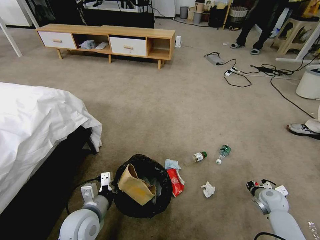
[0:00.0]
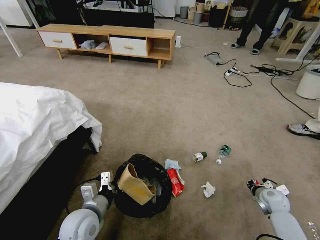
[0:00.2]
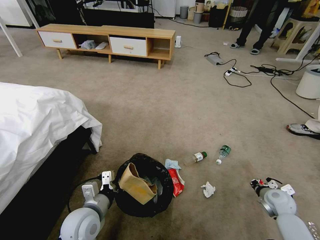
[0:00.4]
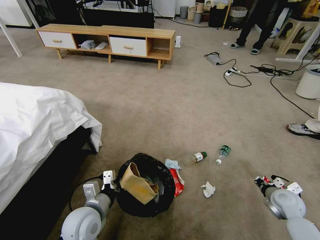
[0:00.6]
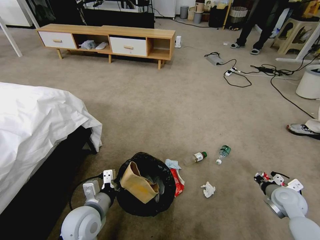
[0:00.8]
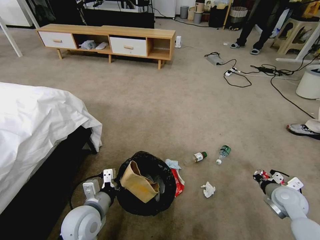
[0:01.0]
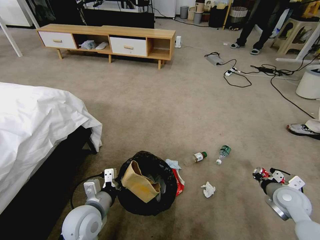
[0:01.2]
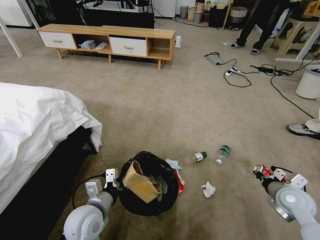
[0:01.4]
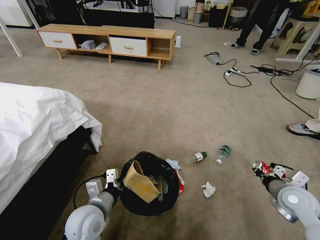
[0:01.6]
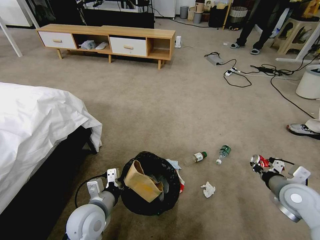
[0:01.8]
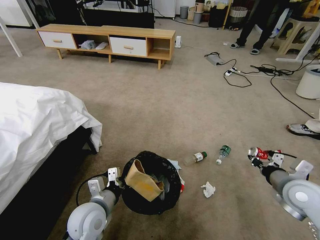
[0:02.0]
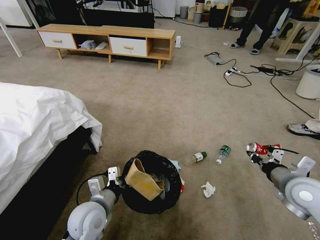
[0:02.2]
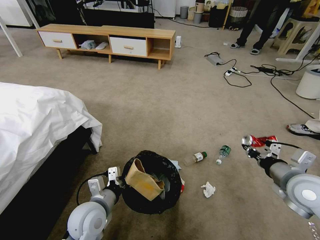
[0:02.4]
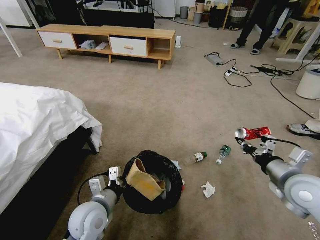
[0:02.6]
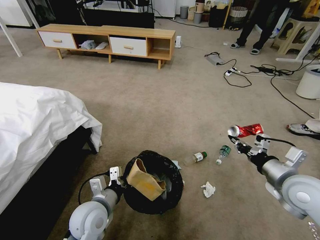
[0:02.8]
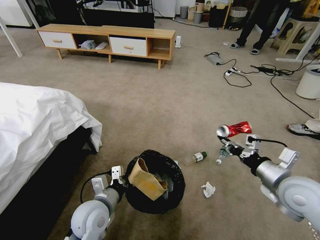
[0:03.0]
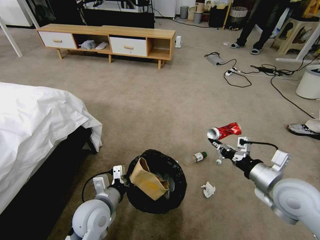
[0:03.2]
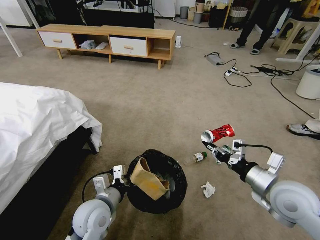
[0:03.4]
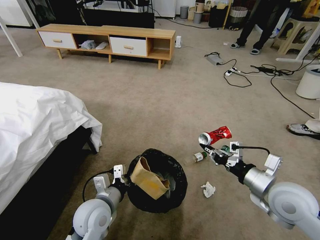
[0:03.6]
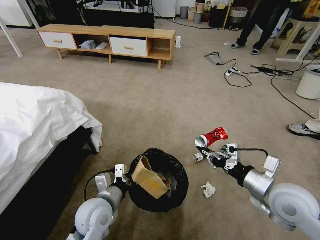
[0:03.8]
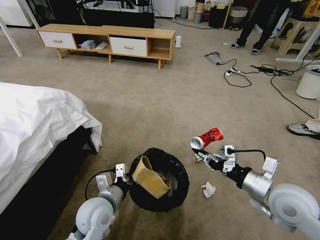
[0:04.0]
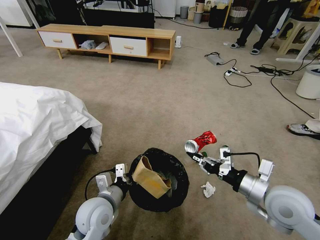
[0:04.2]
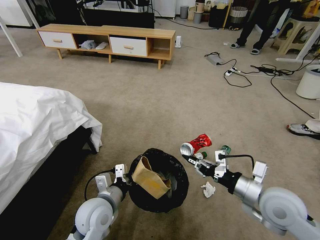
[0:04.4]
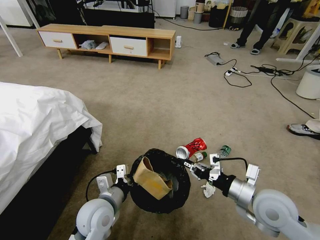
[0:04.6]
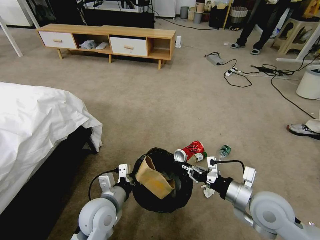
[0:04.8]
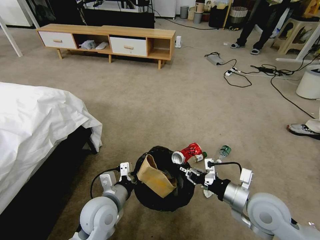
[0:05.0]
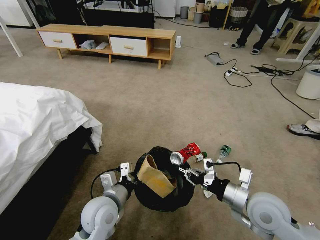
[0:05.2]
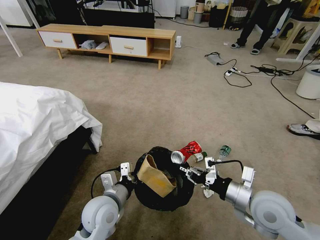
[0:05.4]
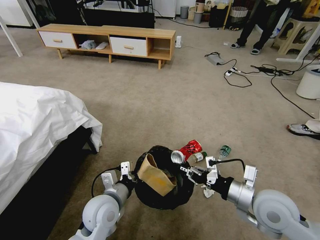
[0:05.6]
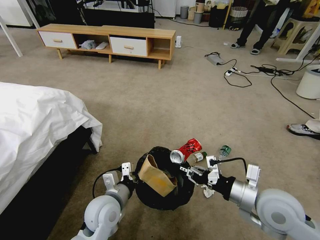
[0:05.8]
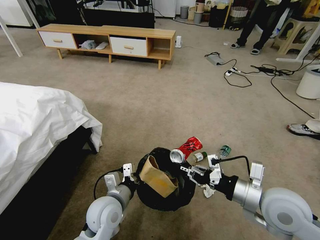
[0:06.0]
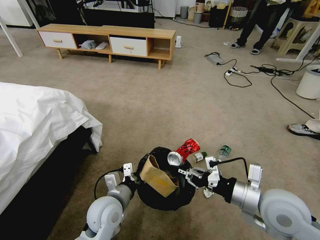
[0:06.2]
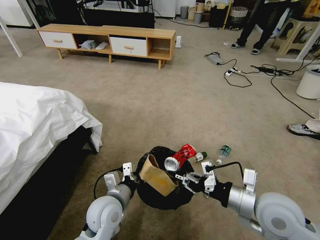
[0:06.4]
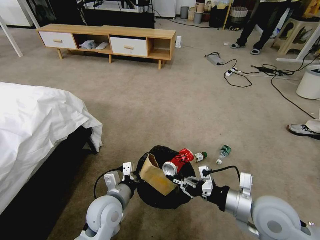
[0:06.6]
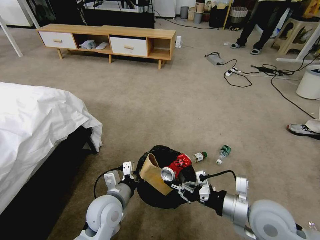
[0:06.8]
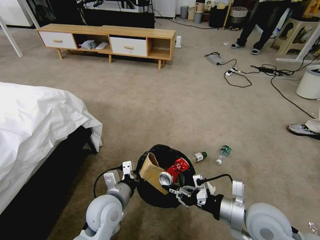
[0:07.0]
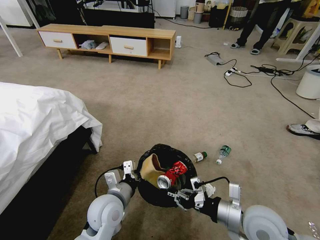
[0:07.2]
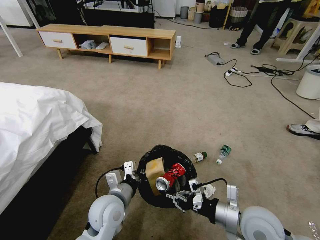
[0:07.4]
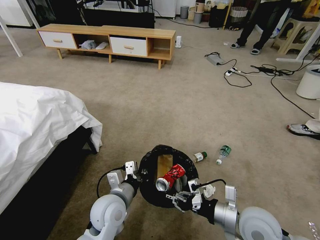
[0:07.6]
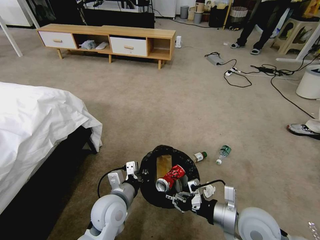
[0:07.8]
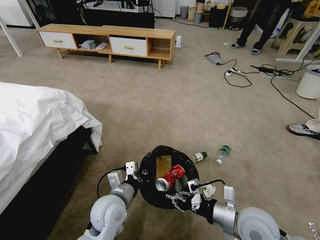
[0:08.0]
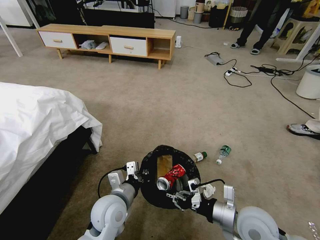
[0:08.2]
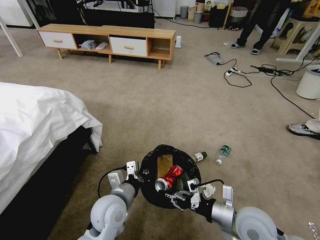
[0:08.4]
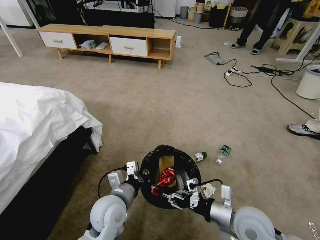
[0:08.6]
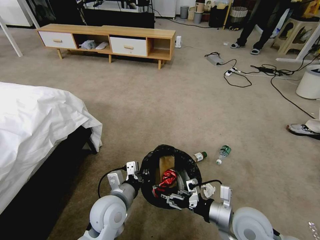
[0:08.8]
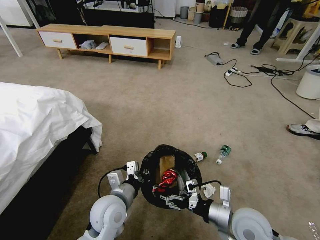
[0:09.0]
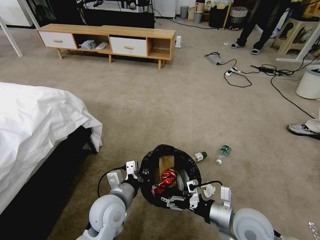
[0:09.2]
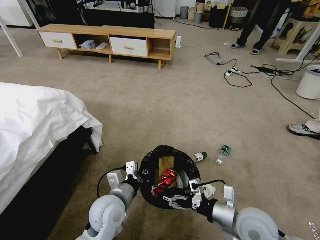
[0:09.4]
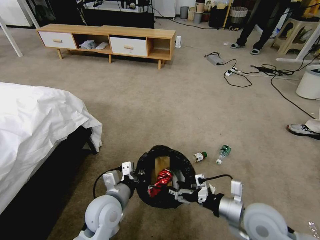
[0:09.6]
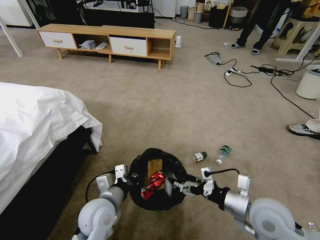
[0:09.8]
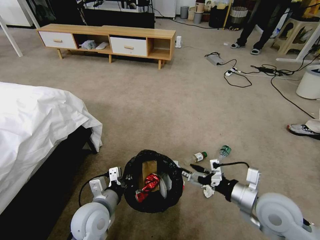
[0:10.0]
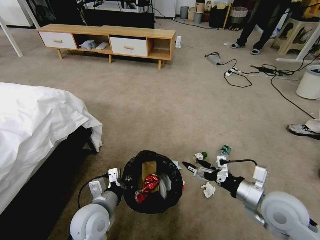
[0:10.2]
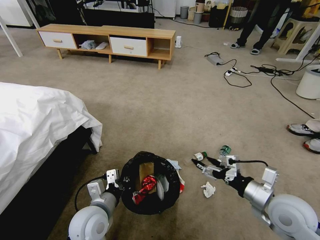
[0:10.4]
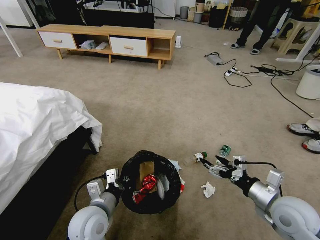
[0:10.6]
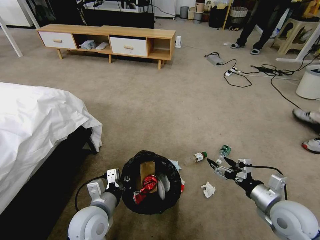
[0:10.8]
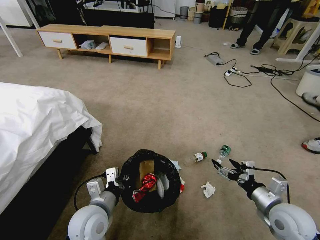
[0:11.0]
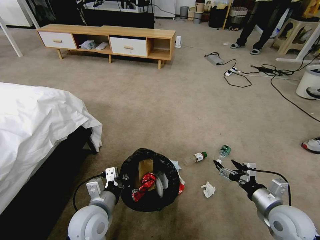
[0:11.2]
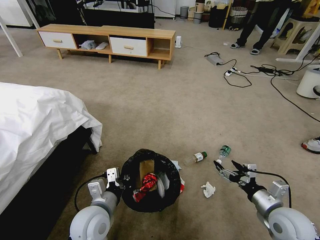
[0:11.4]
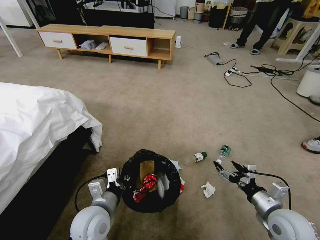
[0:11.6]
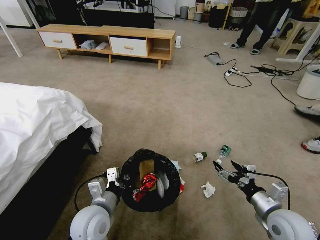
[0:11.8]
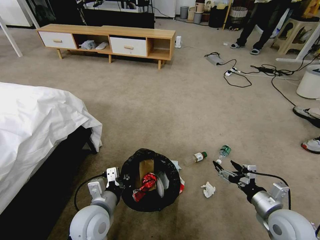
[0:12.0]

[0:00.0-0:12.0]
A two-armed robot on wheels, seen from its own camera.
Task of the whole recording: Pick up the trash bin and place the garbage on the floor into it.
0:00.0 to 0:01.6: The right gripper goes some 15 cm upward.
0:01.6 to 0:03.0: The right gripper is displaced upward and to the left by about 10 cm.
0:03.0 to 0:04.4: The right gripper goes roughly 5 cm to the left.
0:04.4 to 0:06.0: The grippers stay close to where they were, moving slightly.
0:06.0 to 0:07.6: The right gripper moves downward, approximately 5 cm.
0:07.6 to 0:09.0: The right gripper opens up.
0:09.0 to 0:10.4: The right gripper moves to the right, about 10 cm, while the left gripper ends up roughly 5 cm from where it was.
0:10.4 to 0:12.0: The right gripper is displaced downward by roughly 5 cm.

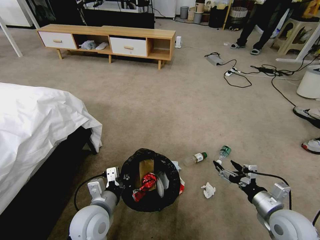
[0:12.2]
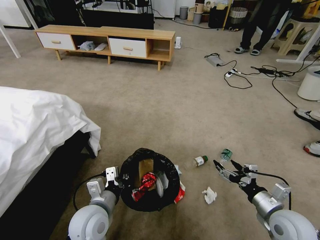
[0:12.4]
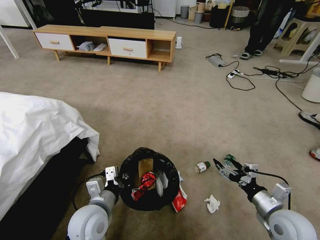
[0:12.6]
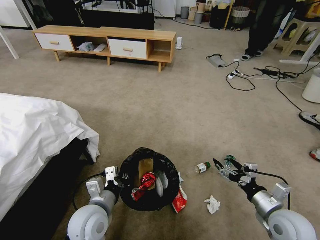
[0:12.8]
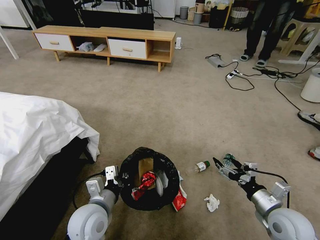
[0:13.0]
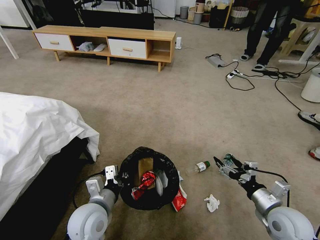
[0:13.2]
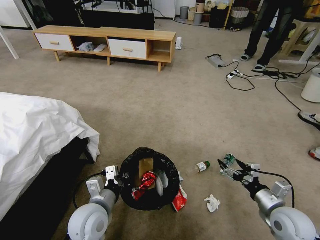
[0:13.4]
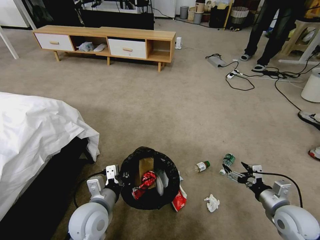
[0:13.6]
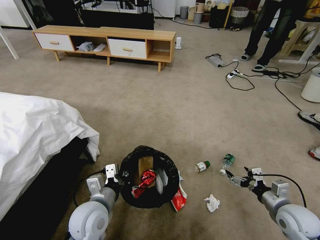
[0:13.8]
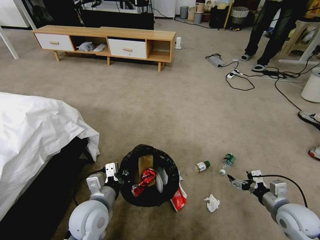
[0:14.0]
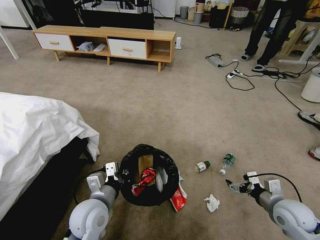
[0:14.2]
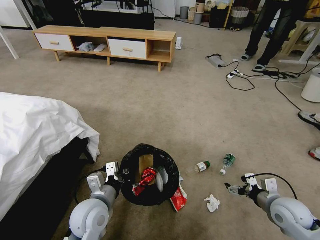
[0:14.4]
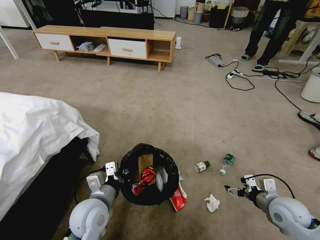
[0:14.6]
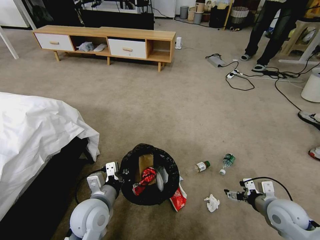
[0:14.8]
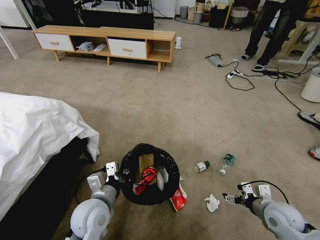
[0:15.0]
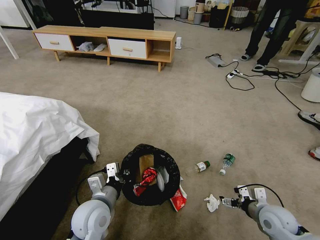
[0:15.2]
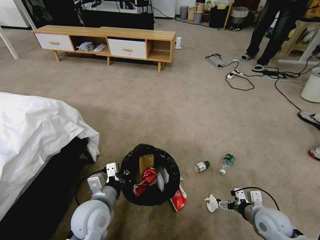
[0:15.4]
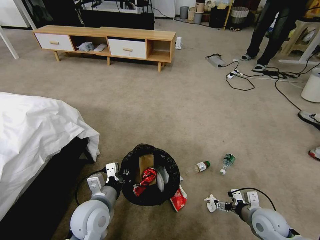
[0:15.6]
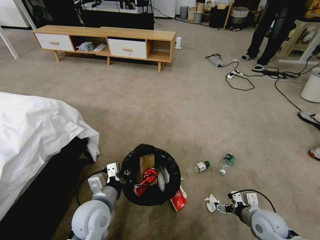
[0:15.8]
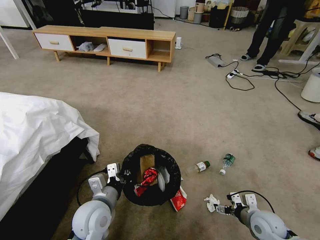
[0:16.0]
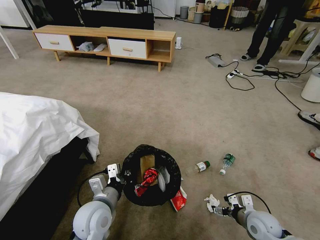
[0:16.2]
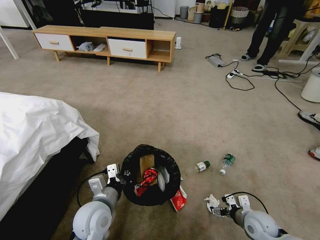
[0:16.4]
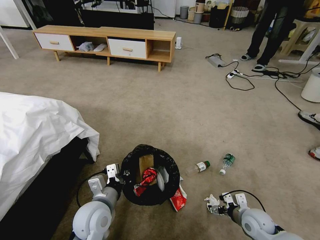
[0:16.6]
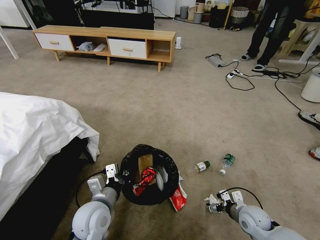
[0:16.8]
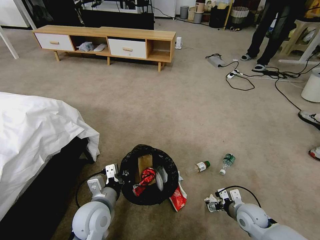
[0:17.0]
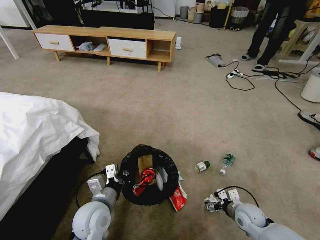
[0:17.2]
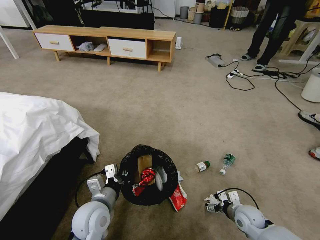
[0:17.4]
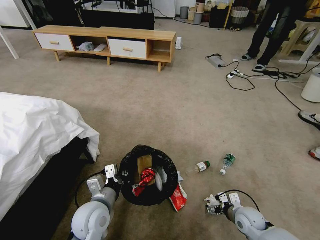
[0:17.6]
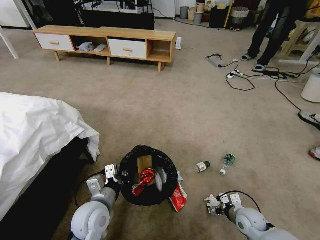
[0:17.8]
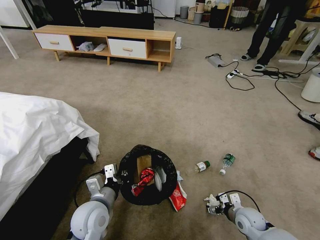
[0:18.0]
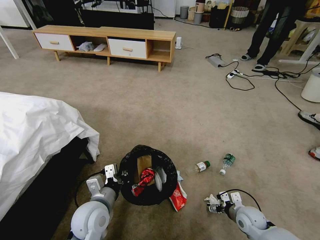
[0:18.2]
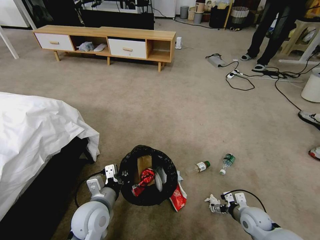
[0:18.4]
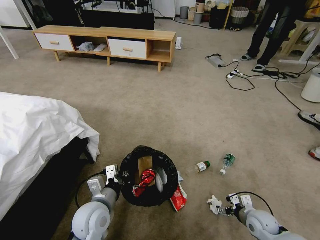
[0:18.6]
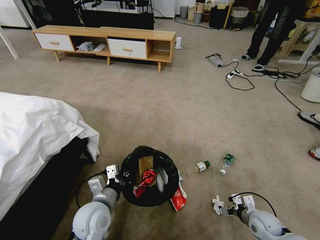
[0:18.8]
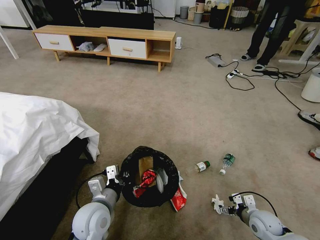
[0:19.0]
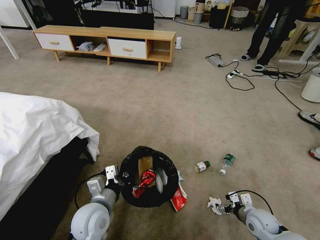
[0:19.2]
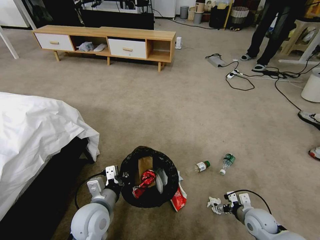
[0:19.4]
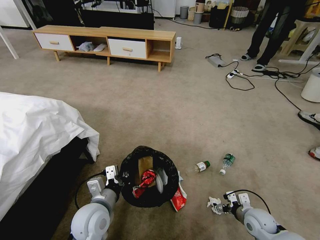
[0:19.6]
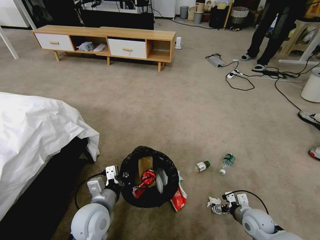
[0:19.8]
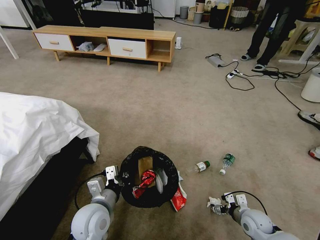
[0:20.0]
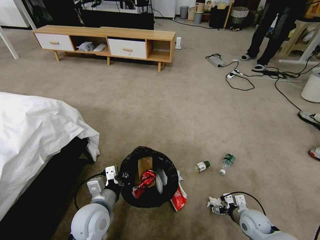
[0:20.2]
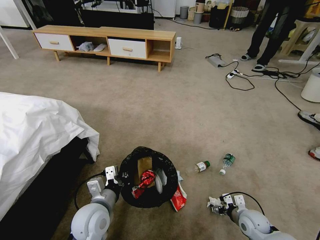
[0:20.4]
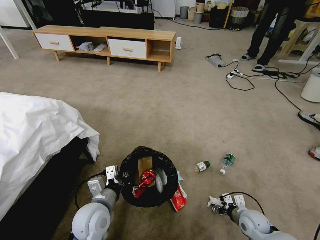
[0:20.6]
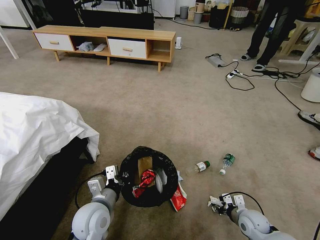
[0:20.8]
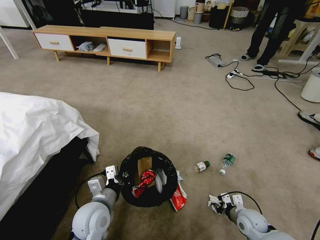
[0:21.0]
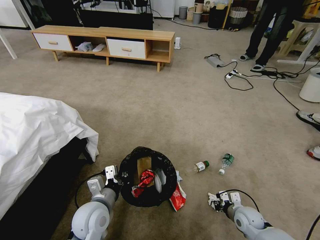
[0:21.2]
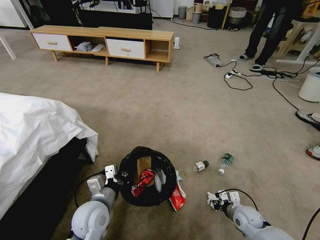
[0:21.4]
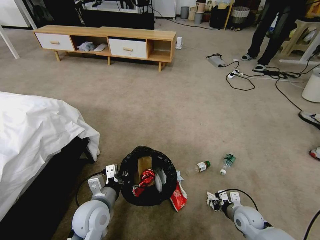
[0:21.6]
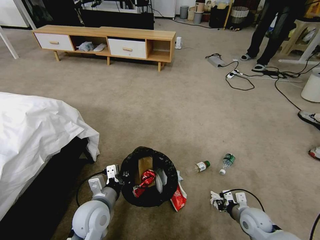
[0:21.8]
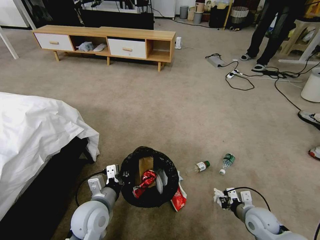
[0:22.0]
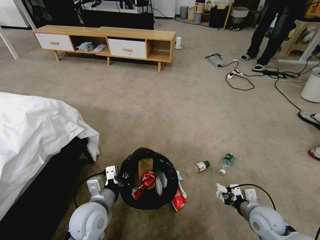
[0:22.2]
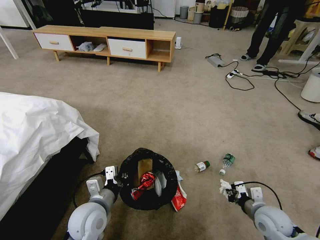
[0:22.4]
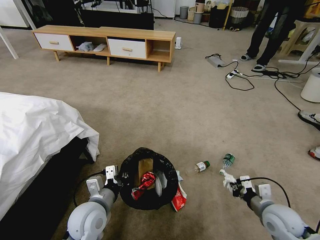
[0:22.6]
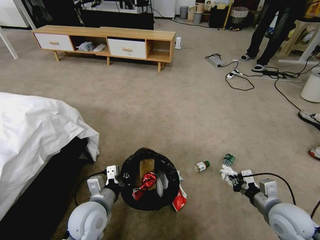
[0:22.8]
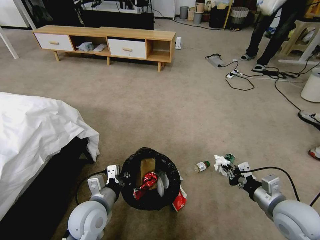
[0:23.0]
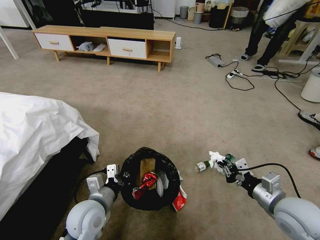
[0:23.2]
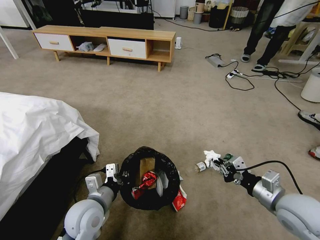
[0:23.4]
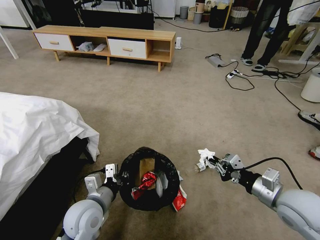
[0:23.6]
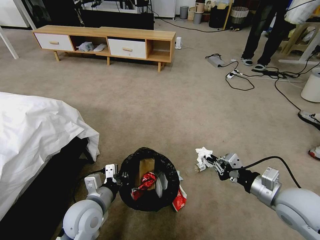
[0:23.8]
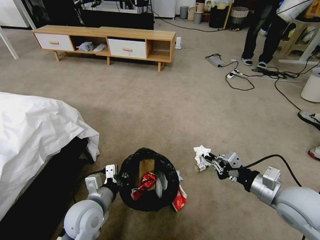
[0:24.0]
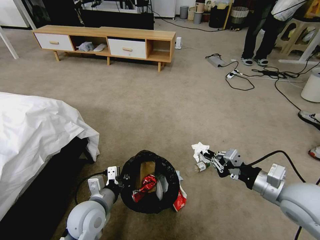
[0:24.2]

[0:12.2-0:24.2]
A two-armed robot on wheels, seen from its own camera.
Task of the whole recording: Pick up the trash bin and place the garbage on the floor into it.
0:12.2 to 0:13.8: The right gripper is displaced to the right by about 5 cm.
0:15.2 to 0:16.6: The right gripper heads downward, covering about 5 cm.
0:16.6 to 0:19.8: The grippers make only small movements.
0:19.8 to 0:21.2: The right gripper closes up.
0:21.2 to 0:22.6: The right gripper moves upward, roughly 15 cm.
0:22.6 to 0:24.2: The right gripper is displaced upward by about 15 cm.
